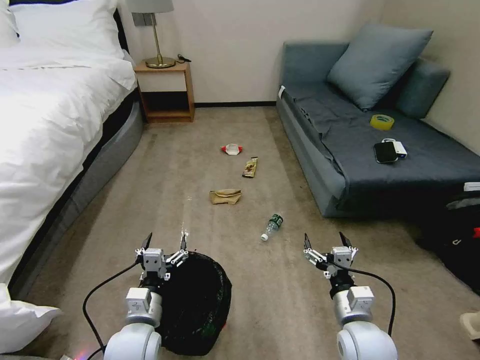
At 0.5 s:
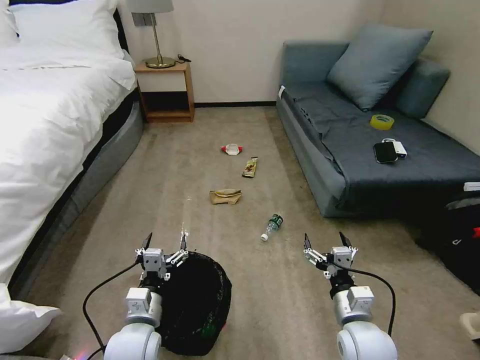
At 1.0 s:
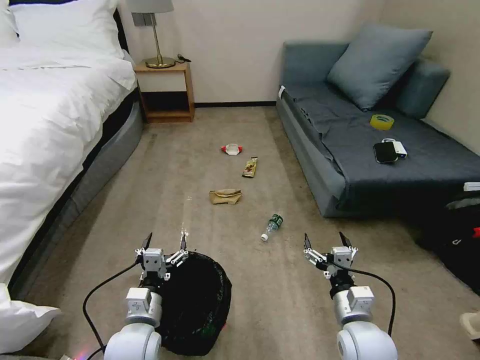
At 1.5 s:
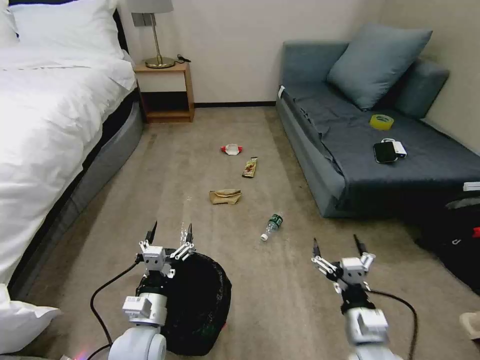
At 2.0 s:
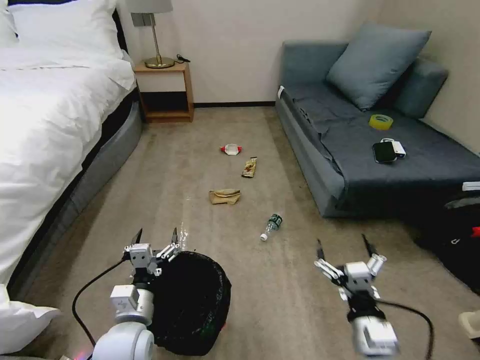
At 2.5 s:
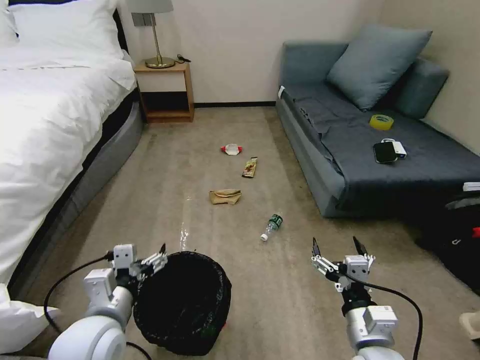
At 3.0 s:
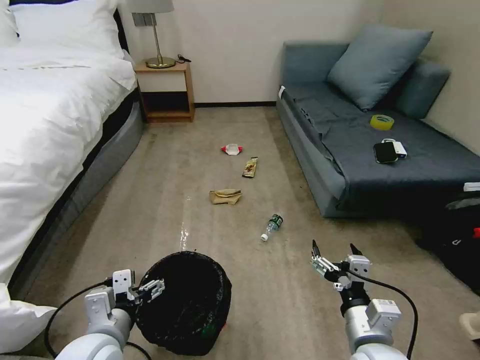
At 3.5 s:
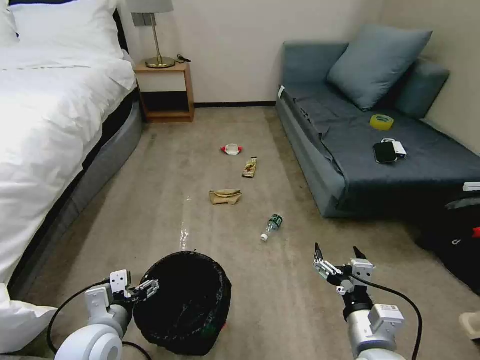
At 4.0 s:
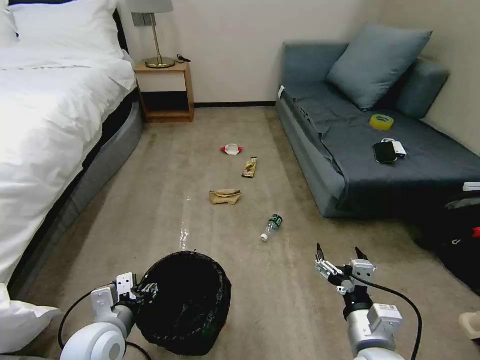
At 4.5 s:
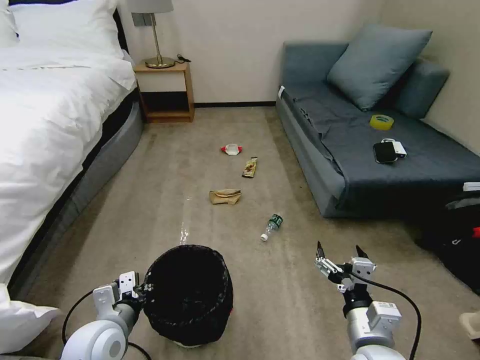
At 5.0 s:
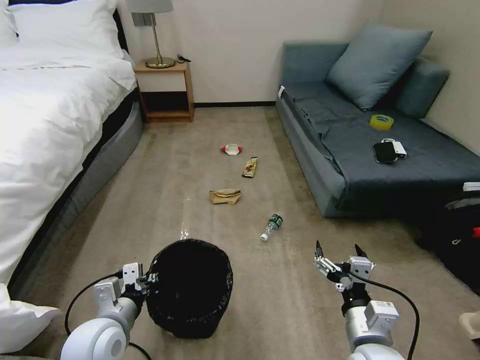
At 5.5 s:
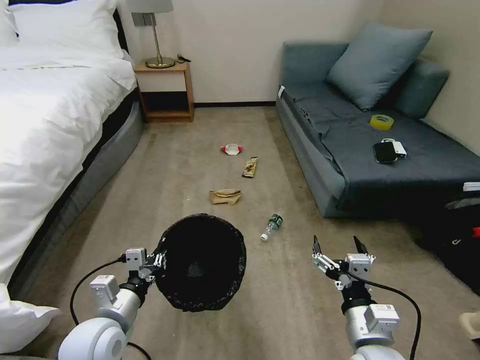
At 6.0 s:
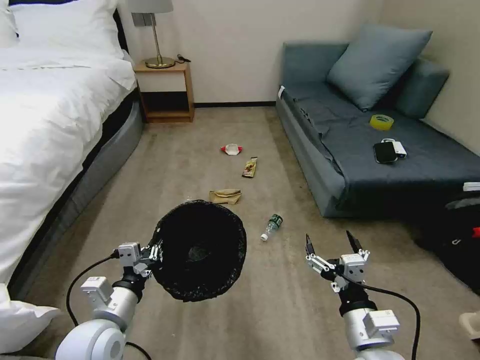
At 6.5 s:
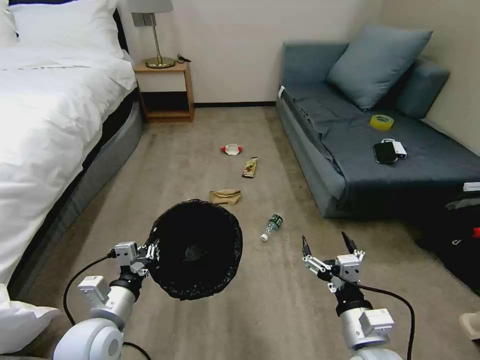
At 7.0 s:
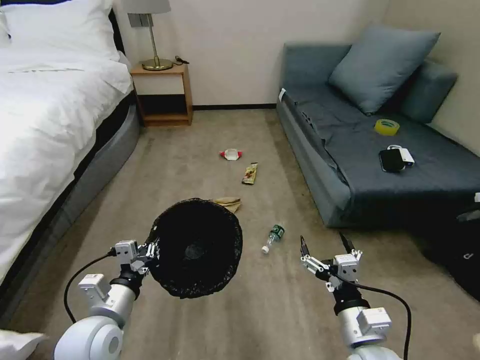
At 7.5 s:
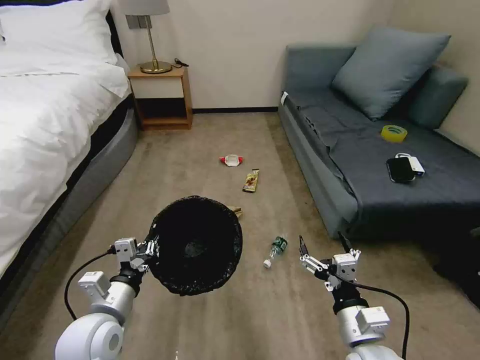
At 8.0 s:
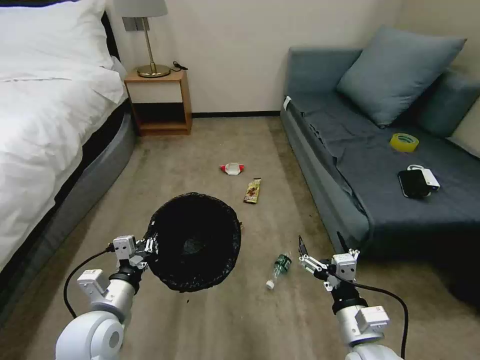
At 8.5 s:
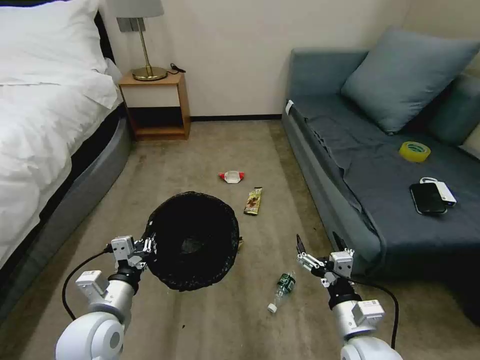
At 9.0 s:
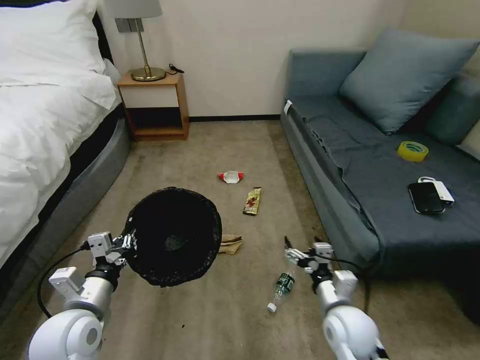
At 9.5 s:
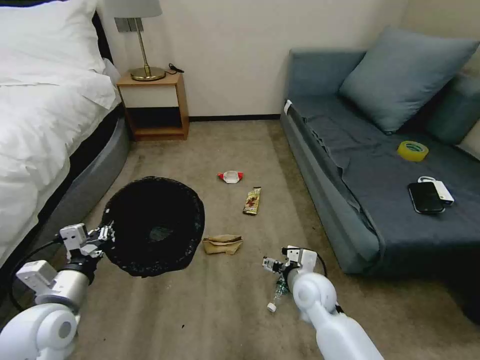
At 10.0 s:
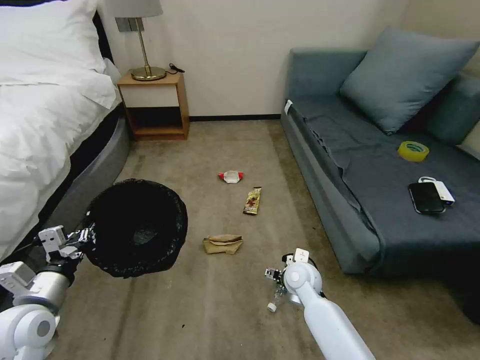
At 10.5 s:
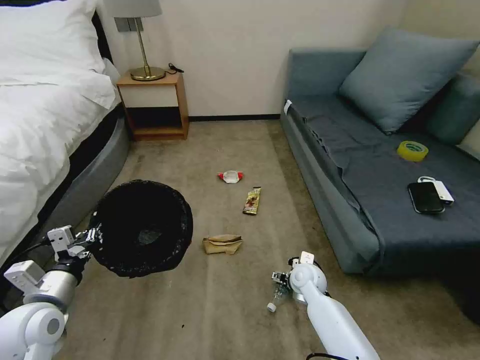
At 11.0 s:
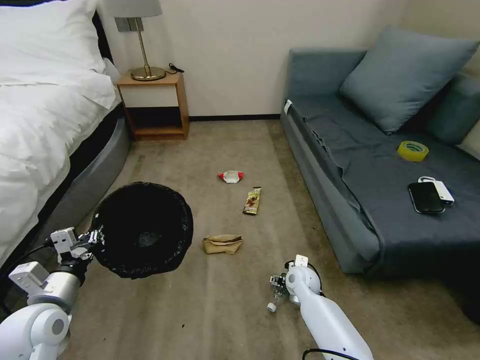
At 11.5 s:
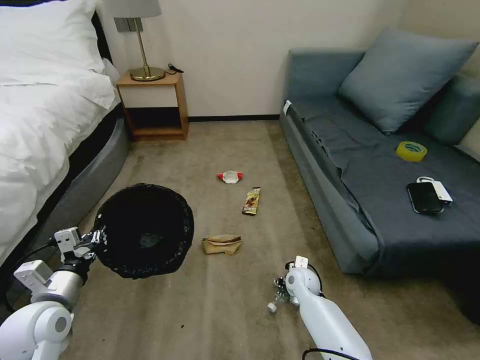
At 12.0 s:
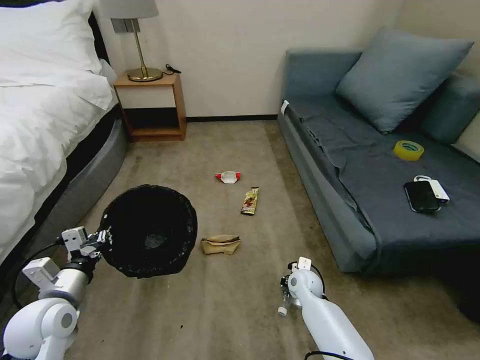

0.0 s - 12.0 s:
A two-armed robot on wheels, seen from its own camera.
Task of the whole recording: Pick up the trash bin, then pick up the garbage on the floor and place it into the trash bin.
2.0 s - 4.0 s: The left gripper goes upward and returns, about 10 cm each way, and closes up.
4.0 s - 6.0 s: The left gripper closes up.
8.0 s - 10.0 s: The right gripper shifts roughly 20 cm forward and downward; the left gripper is displaced to the left by about 10 cm.
10.0 s - 12.0 s: The right gripper goes roughly 10 cm downward, and closes.

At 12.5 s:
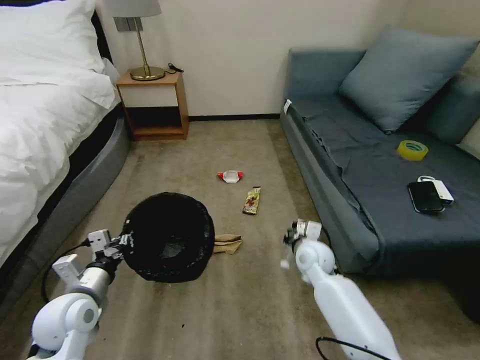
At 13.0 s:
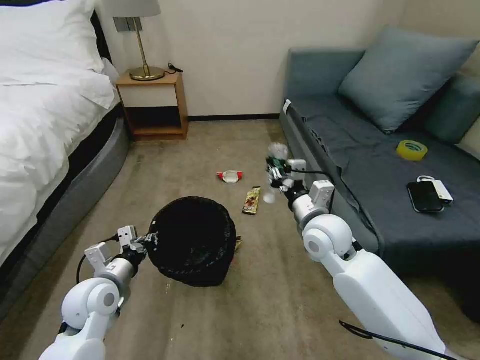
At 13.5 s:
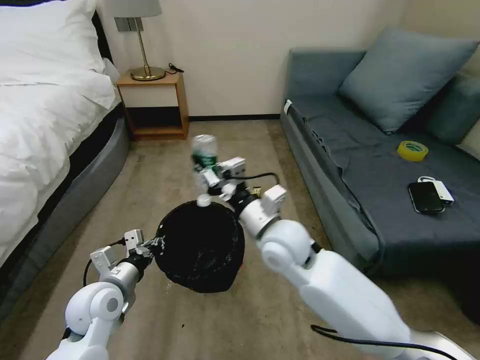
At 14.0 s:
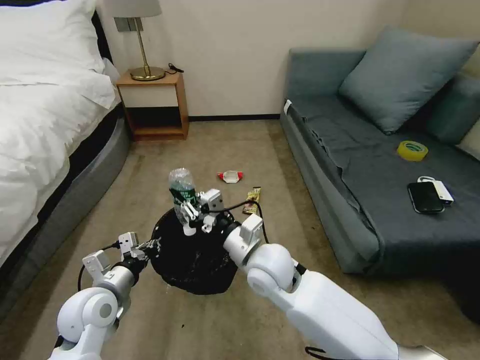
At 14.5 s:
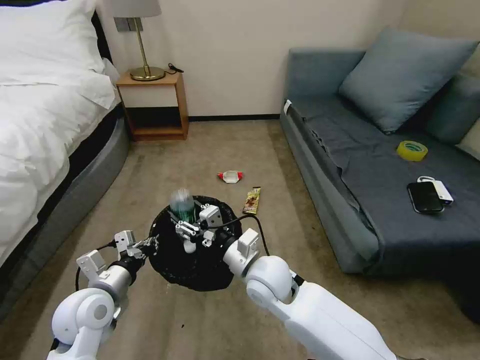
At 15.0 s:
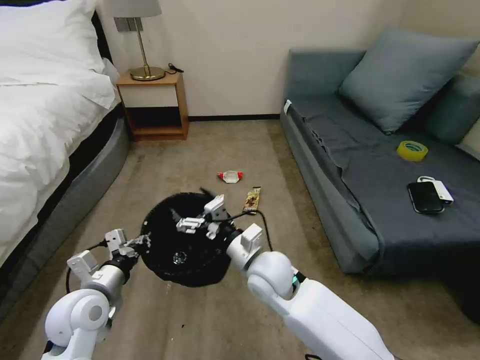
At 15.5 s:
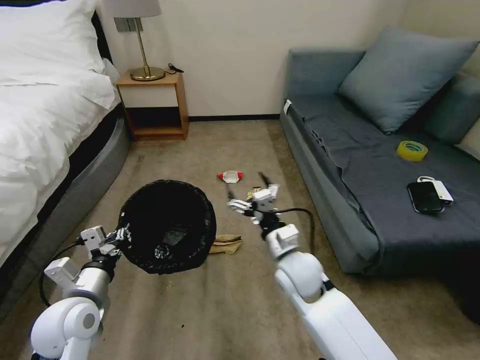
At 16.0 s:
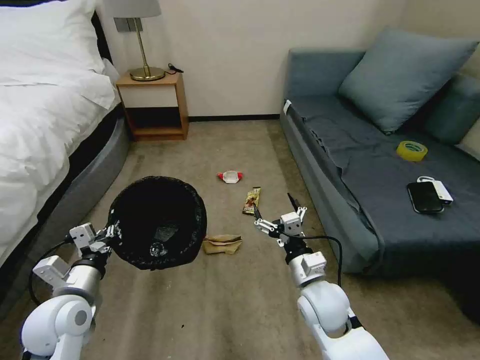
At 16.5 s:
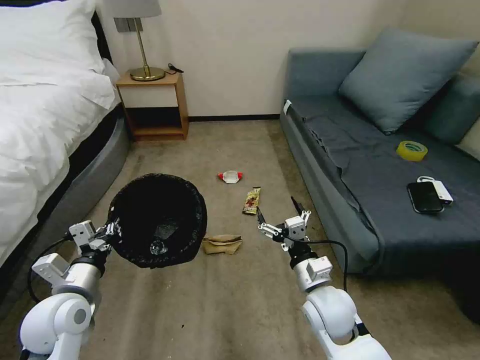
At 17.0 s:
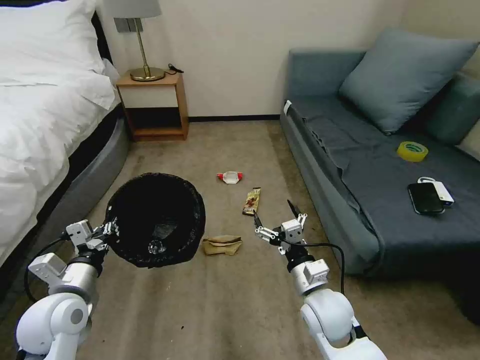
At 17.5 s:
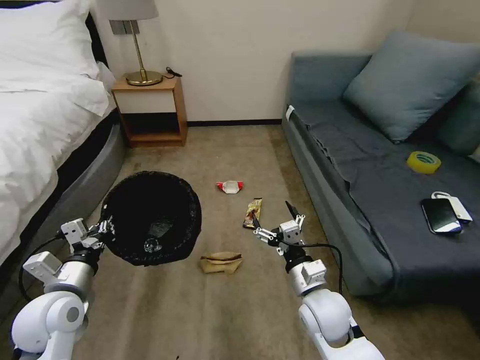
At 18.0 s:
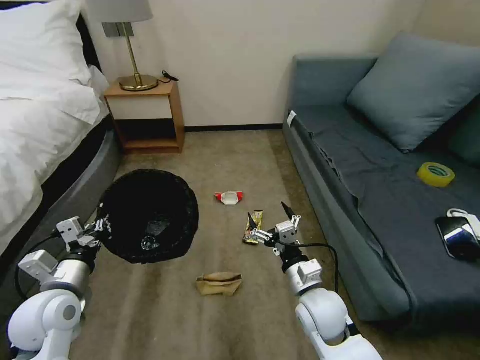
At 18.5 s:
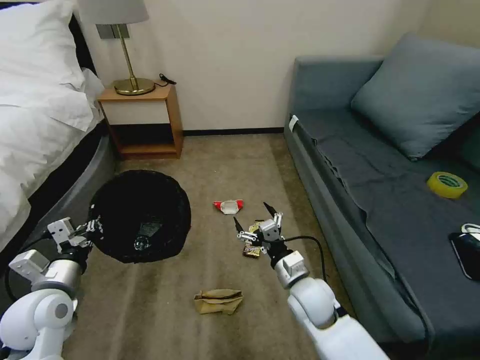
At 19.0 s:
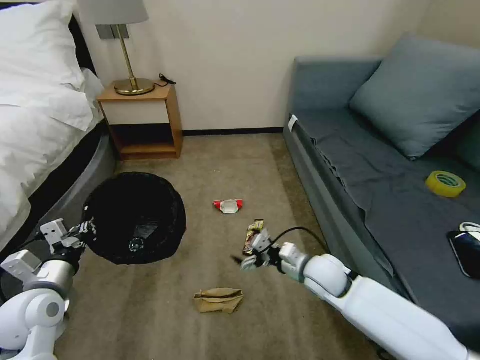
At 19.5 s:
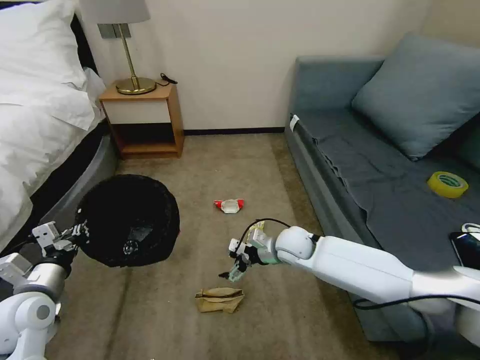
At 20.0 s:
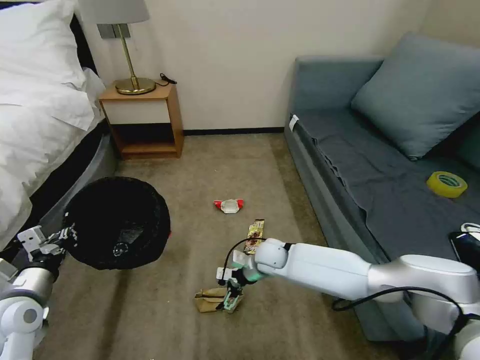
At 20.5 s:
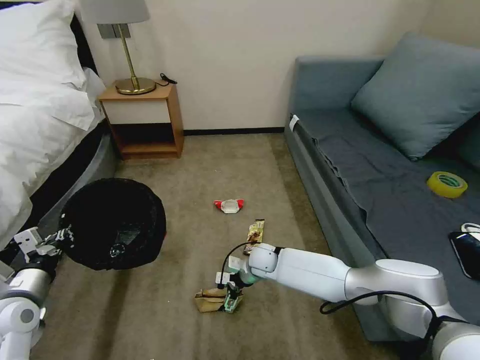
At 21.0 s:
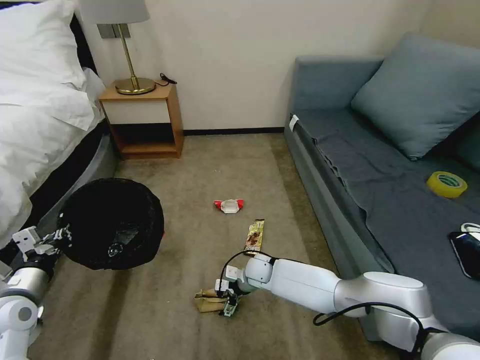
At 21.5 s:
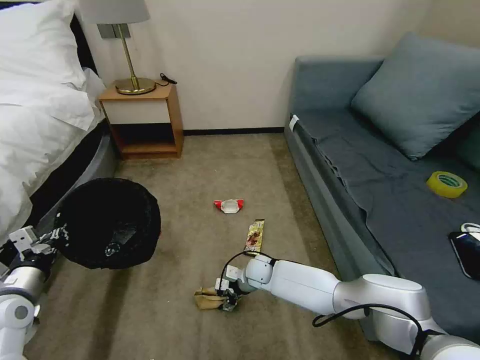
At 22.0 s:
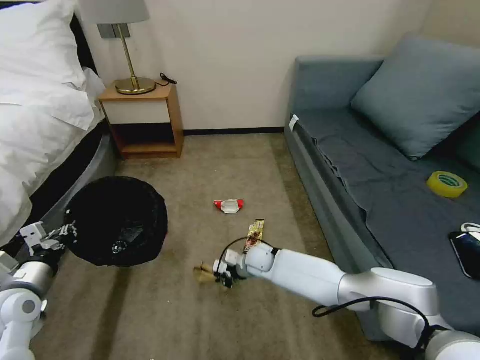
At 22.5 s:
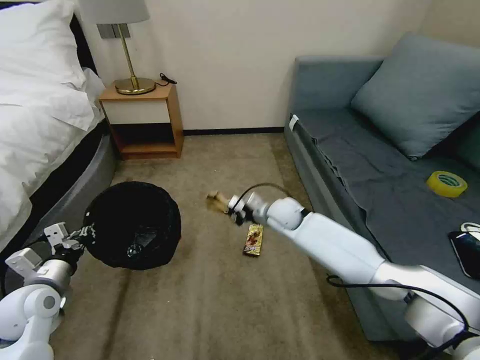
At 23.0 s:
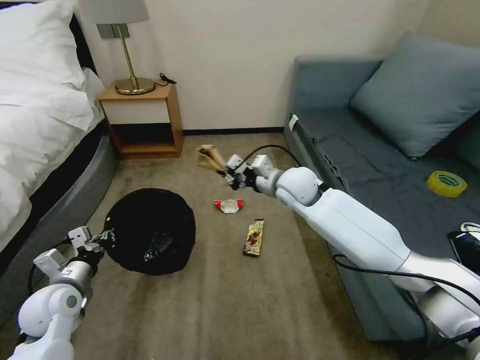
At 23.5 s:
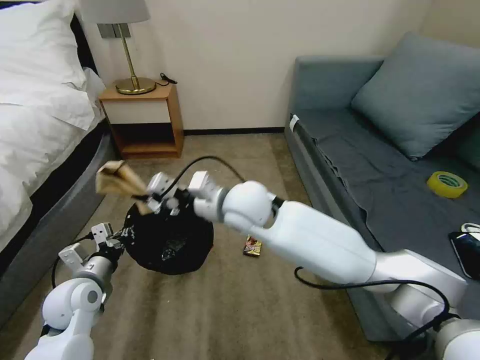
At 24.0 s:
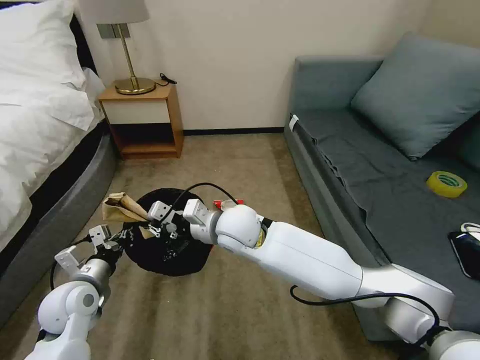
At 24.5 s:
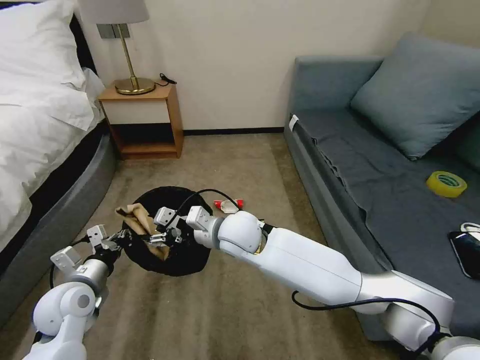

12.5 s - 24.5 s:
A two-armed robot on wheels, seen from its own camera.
Task of the whole recording: Pick up the trash bin, then pick up the garbage on the floor and place it into the trash bin.
12.5 s - 14.5 s: The right gripper travels to the left, backward and upward by some 20 cm, and opens up.
14.5 s - 16.5 s: The right gripper travels to the right by roughly 10 cm, and opens its fingers.
18.5 s - 20.5 s: The left gripper heads to the left, covering some 5 cm, while the right gripper moves forward, downward and to the left, approximately 20 cm.
20.5 s - 22.5 s: The right gripper goes about 15 cm upward and forward, and closes up.
22.5 s - 24.5 s: The right gripper moves to the left, backward and upward, roughly 20 cm, and opens its fingers; the left gripper shifts roughly 5 cm to the right.

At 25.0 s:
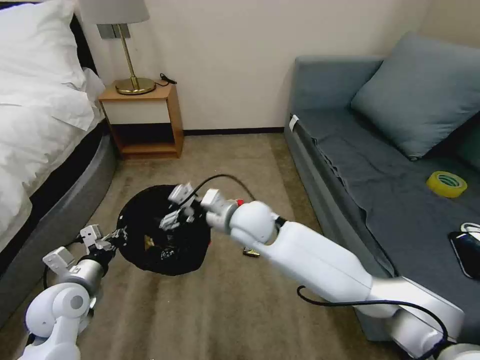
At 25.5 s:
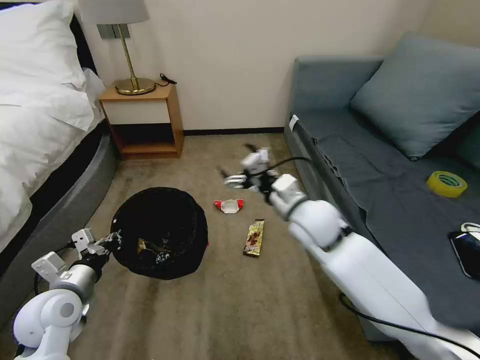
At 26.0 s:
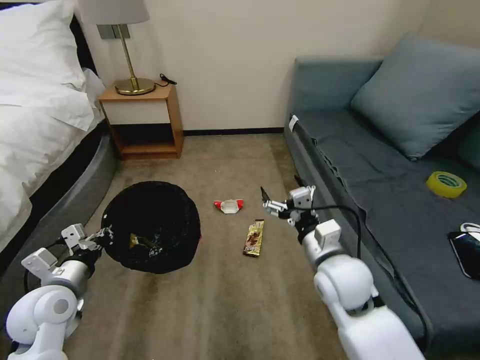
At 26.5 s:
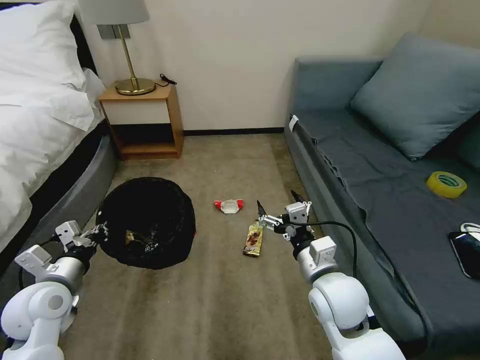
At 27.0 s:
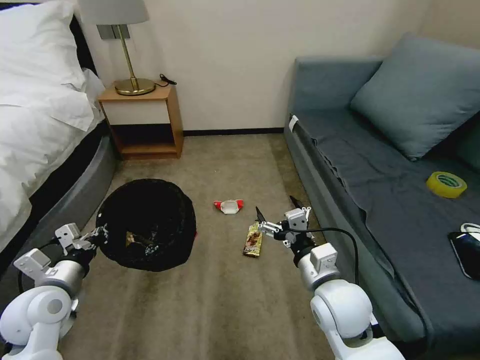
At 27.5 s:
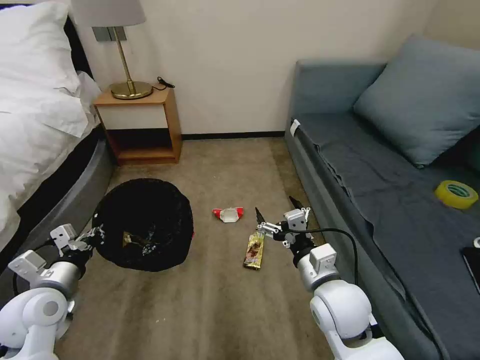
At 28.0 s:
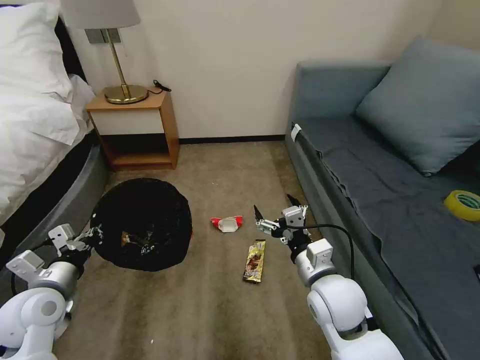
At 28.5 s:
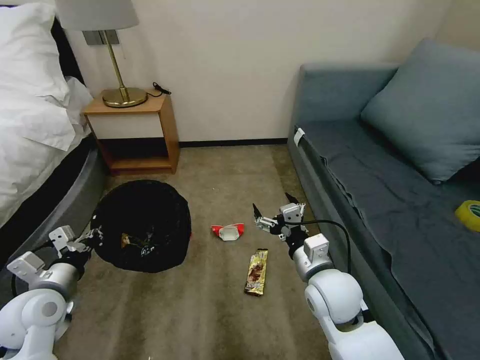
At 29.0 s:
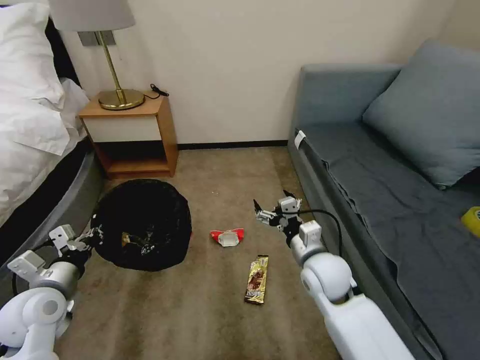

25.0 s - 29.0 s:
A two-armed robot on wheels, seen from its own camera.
Task of the whole recording: Pick up the trash bin, then pick up the garbage on the floor and place it into the trash bin.
25.0 s - 27.0 s: The right gripper shifts roughly 20 cm to the right and backward.
27.0 s - 29.0 s: The right gripper travels forward by approximately 10 cm.
